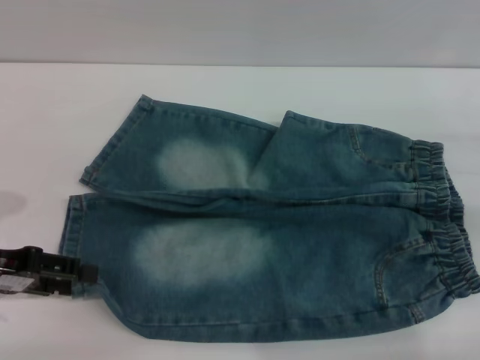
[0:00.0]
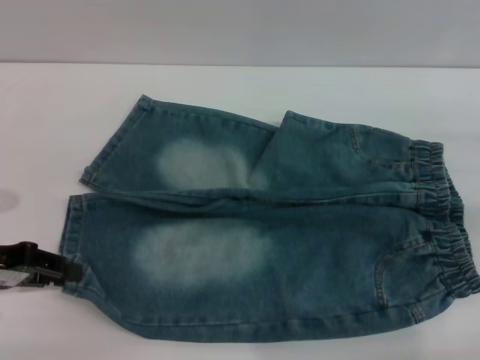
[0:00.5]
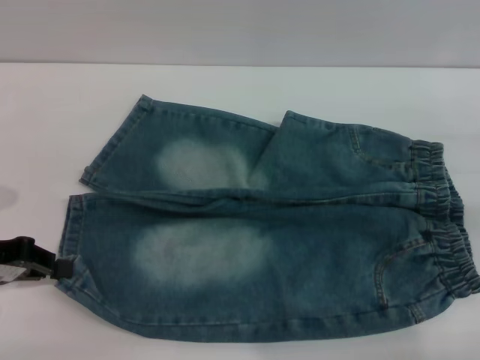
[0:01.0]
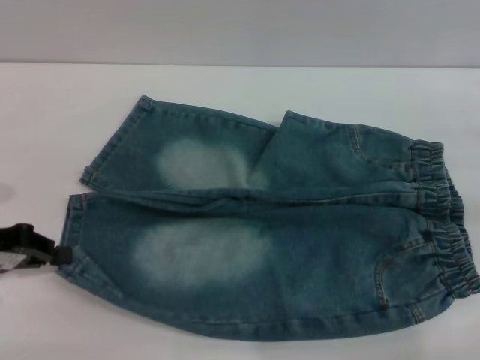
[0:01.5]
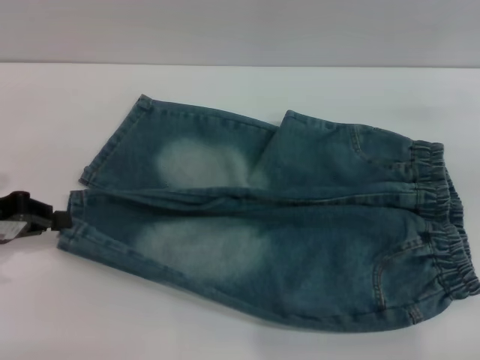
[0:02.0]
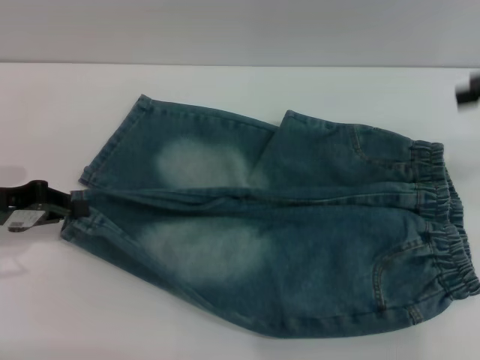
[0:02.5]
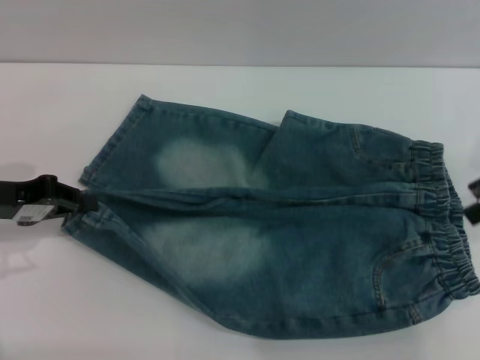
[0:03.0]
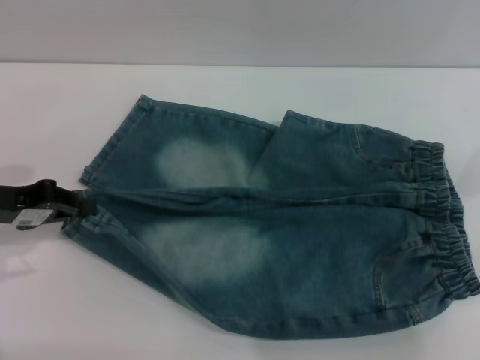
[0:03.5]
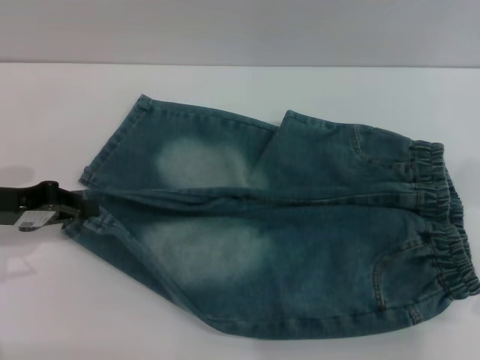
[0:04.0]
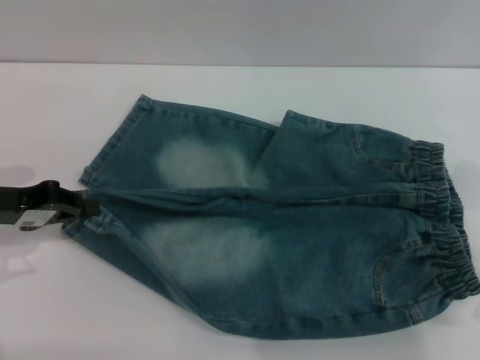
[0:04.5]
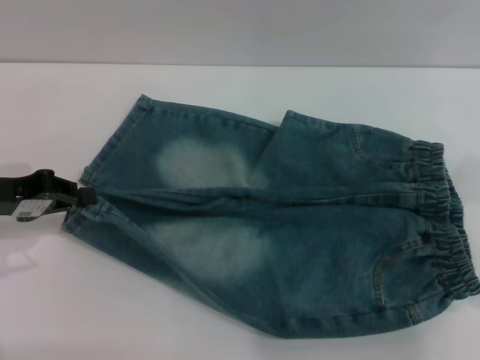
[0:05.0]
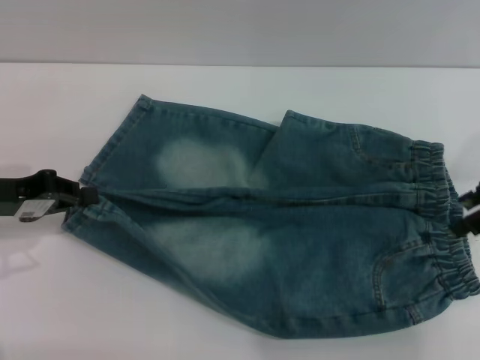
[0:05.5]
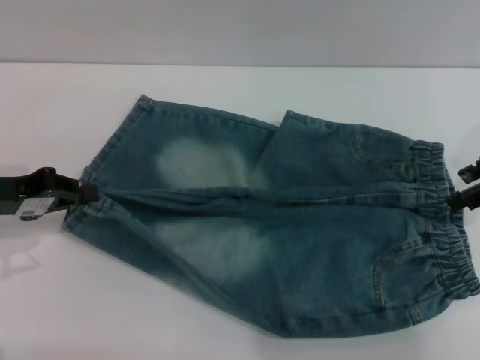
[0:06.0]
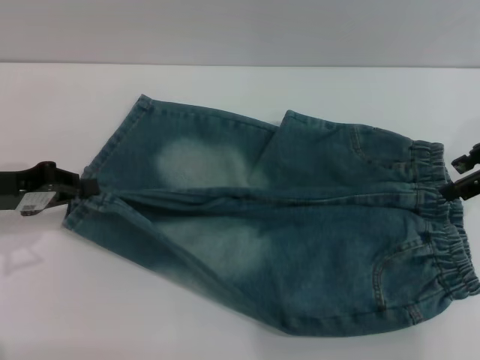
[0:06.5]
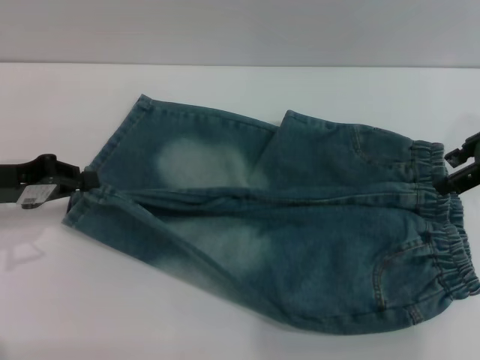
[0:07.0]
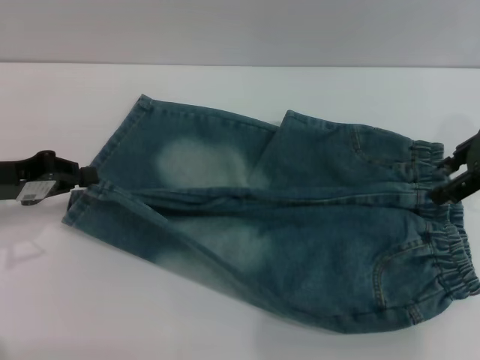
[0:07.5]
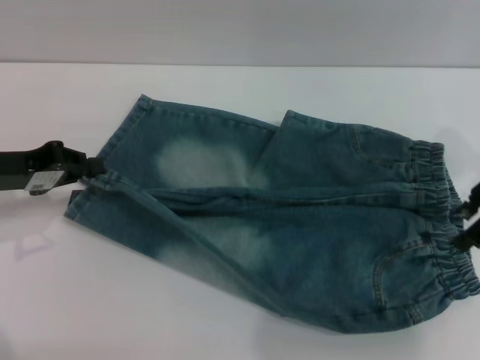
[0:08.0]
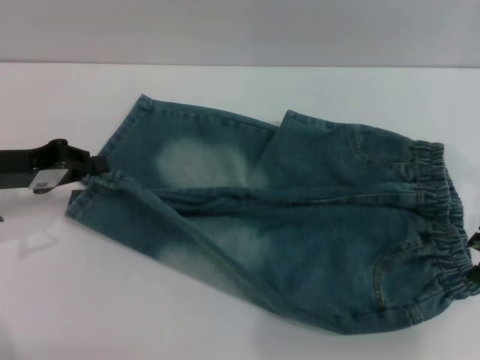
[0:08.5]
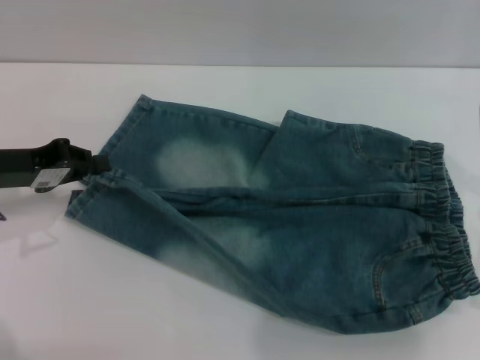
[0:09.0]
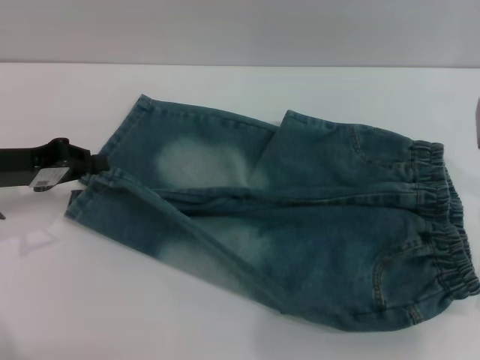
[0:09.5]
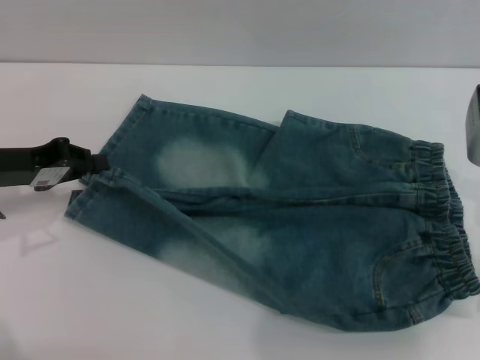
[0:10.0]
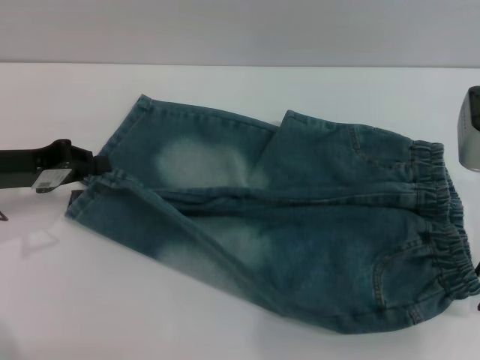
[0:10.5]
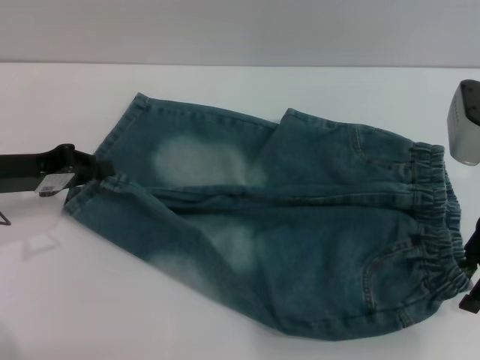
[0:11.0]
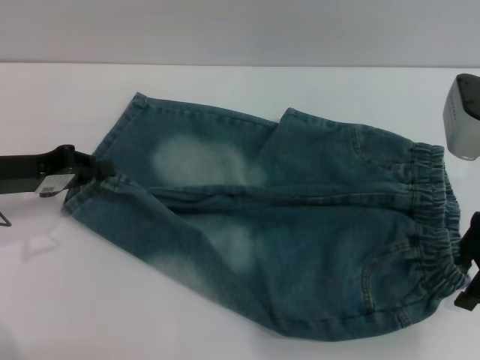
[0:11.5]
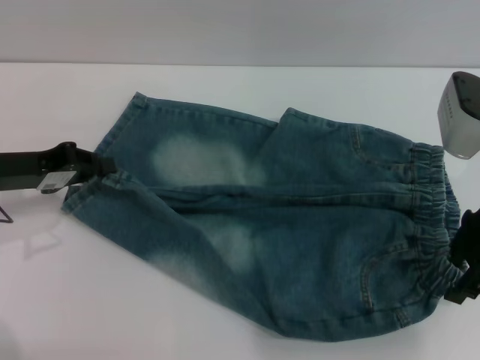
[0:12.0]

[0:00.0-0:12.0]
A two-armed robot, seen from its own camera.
0:00.0 to 0:02.0: The left gripper closes. The right gripper is displaced upward by about 5 cm.
0:02.0 to 0:04.0: The right gripper travels to the left by some 10 cm.
0:06.0 to 0:08.0: The grippers make only small movements.
0:08.0 to 0:12.0: The grippers make only small movements.

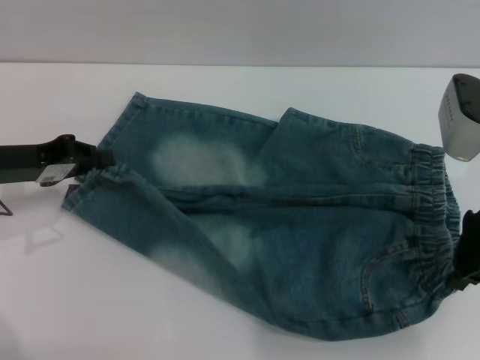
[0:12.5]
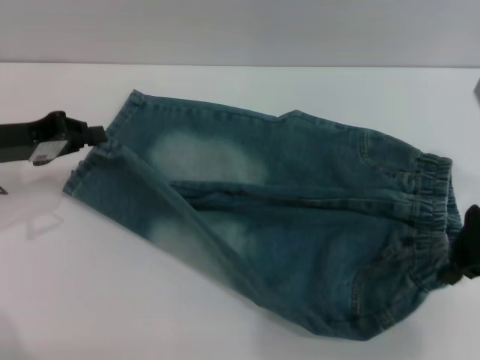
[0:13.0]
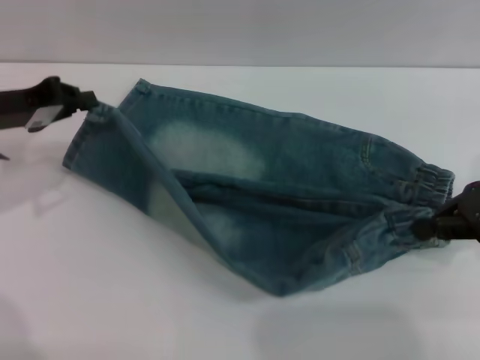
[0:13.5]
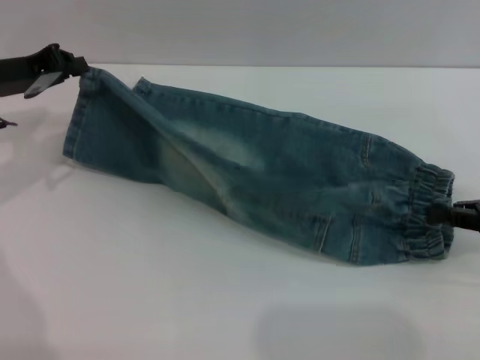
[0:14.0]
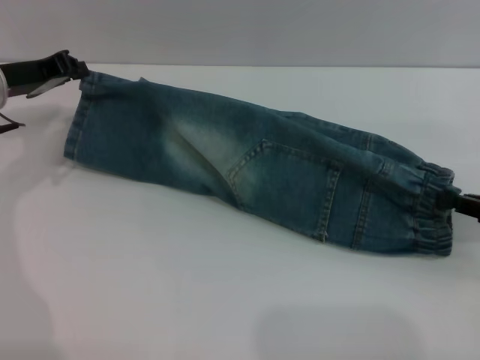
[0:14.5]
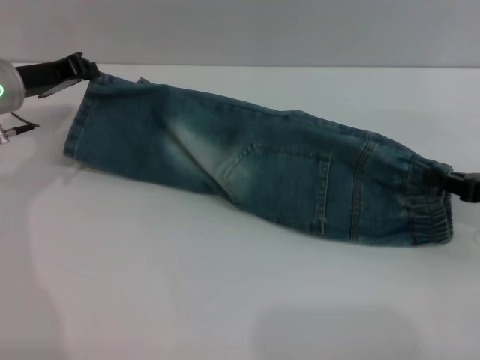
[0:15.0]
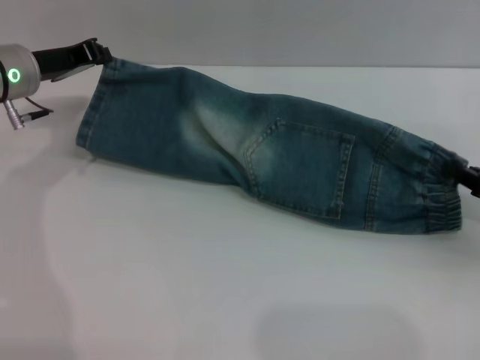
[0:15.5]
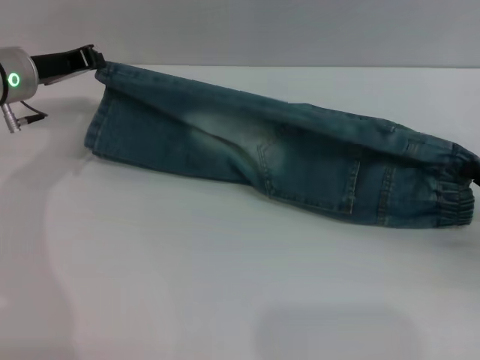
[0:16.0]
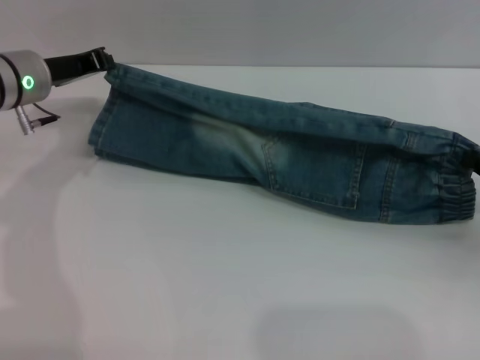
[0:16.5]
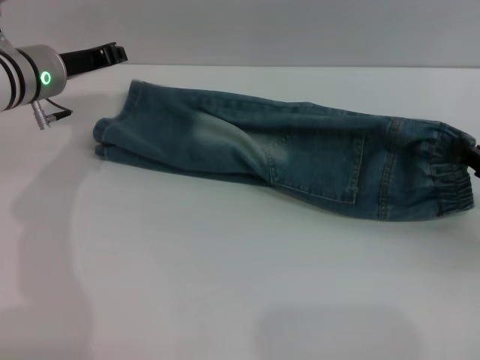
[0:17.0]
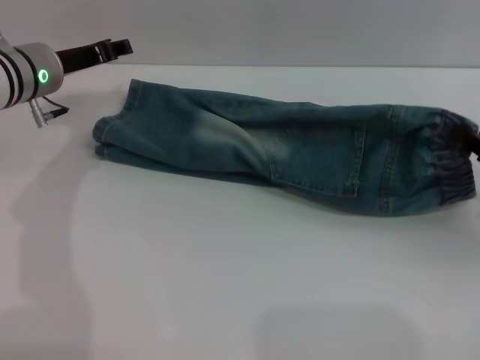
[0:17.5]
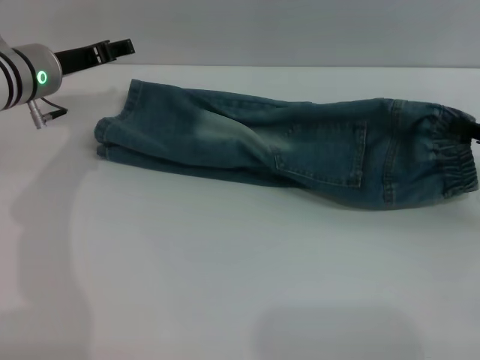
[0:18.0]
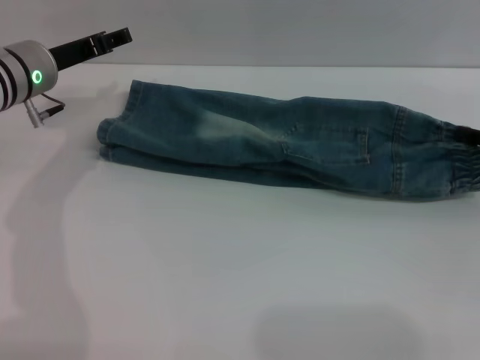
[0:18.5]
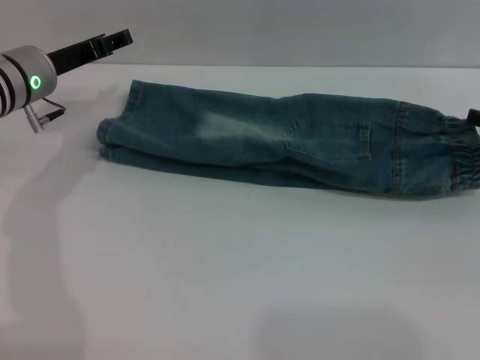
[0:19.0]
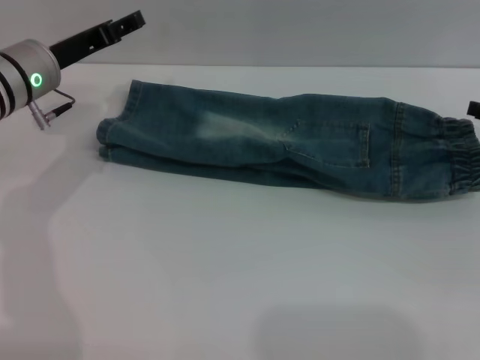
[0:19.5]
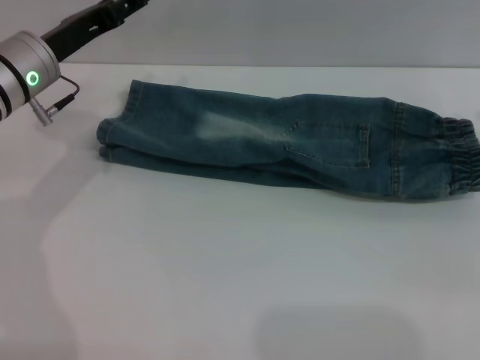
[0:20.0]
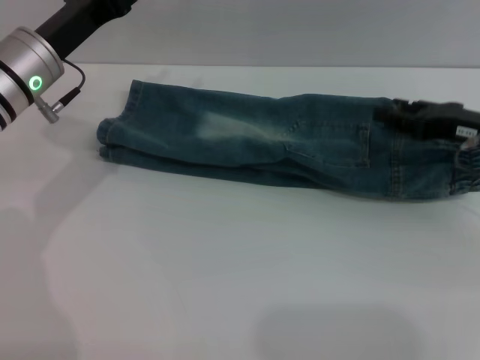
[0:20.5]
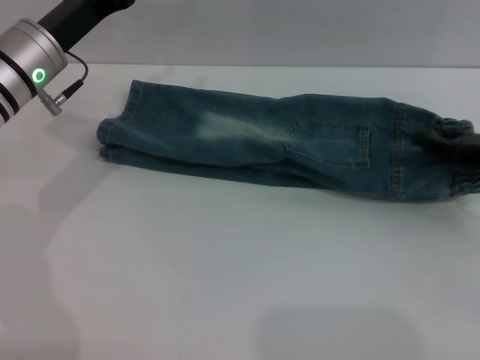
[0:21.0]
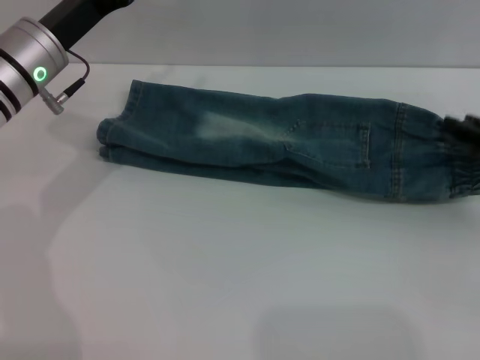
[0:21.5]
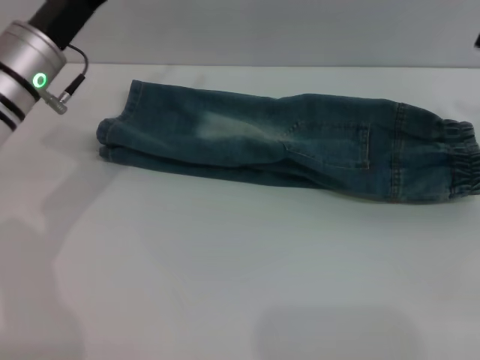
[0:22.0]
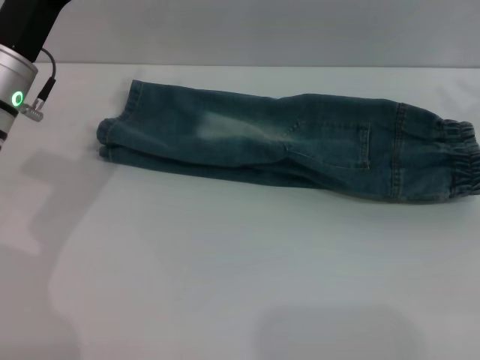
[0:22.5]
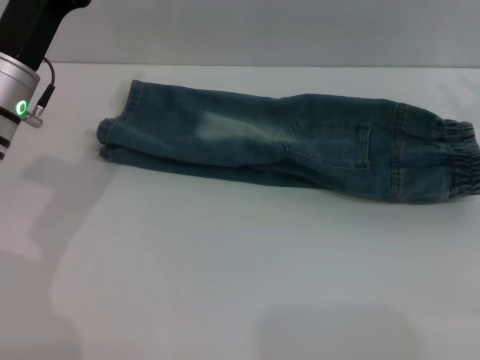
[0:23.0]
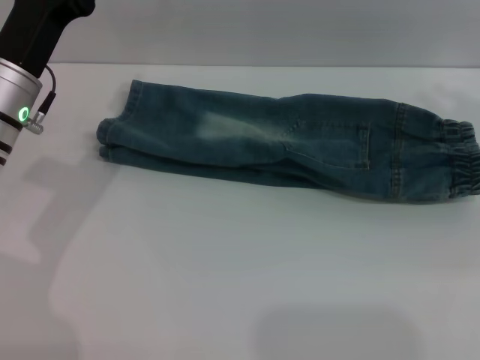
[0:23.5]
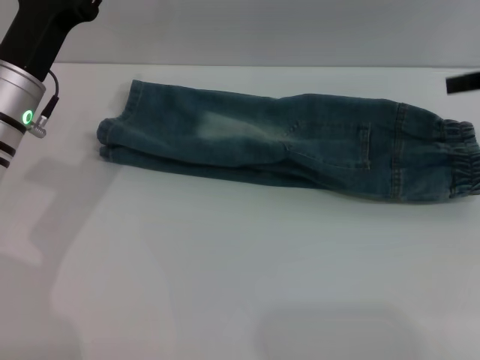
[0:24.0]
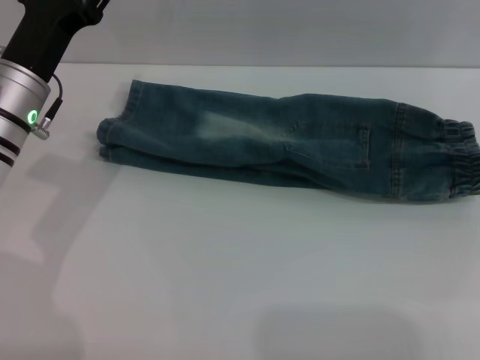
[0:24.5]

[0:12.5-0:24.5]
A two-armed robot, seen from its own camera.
Step, 0:12.5 to 0:19.0: Fold the bottom of the pants upward with both grippers.
0:12.5 to 0:14.5: The left gripper travels forward by about 10 cm, while the right gripper travels to the right, backward and downward by about 15 cm, and closes up.
0:14.5 to 0:16.5: The grippers move only a little.
0:16.5 to 0:18.5: The right gripper goes about 5 cm forward, while the left gripper opens up.
0:18.5 to 0:20.5: The right gripper heads to the left, covering approximately 5 cm.
0:20.5 to 0:22.5: The right gripper moves to the right and upward, roughly 10 cm.

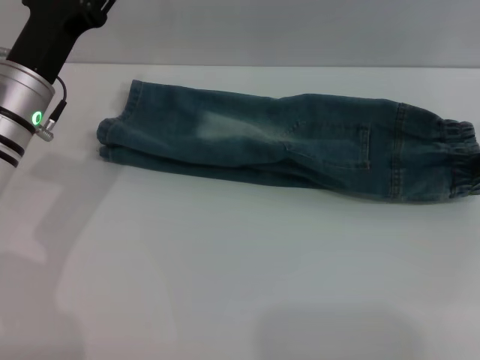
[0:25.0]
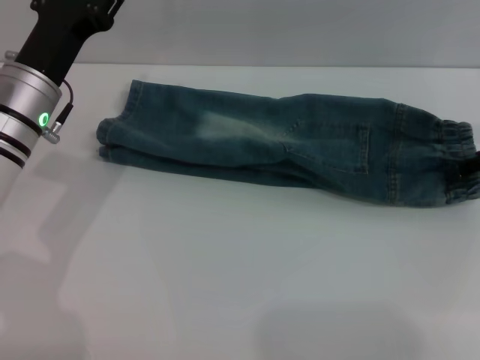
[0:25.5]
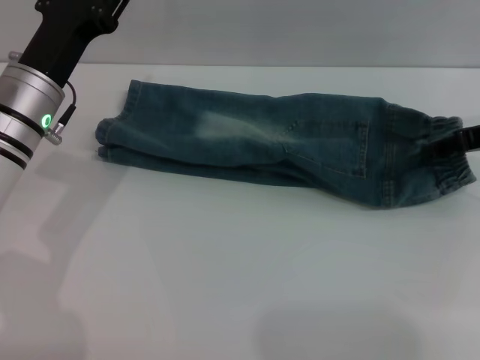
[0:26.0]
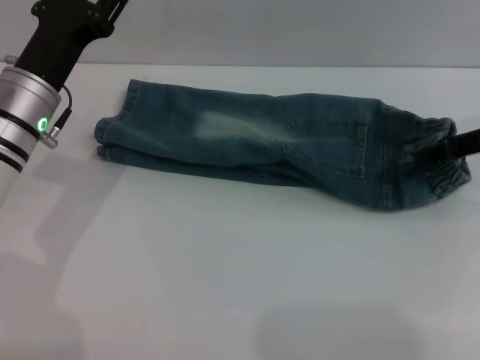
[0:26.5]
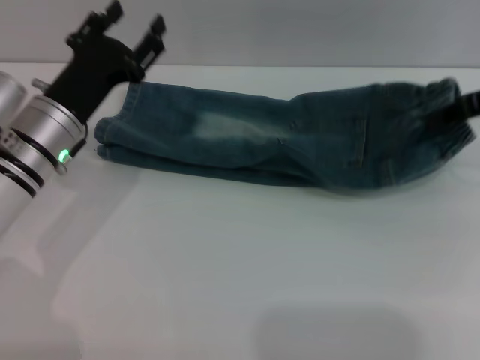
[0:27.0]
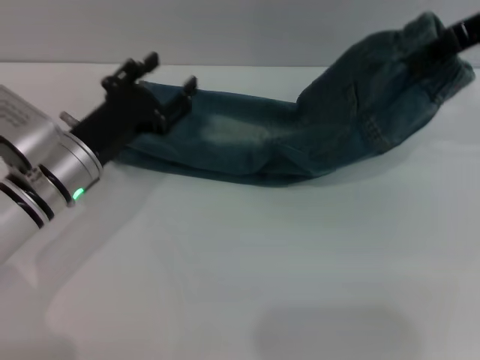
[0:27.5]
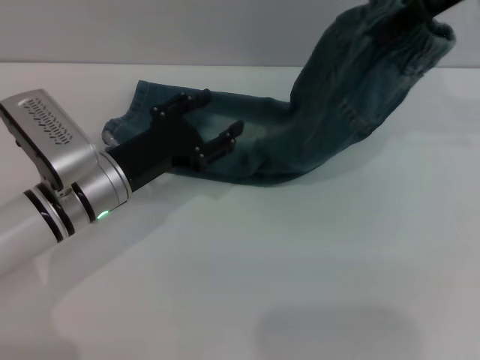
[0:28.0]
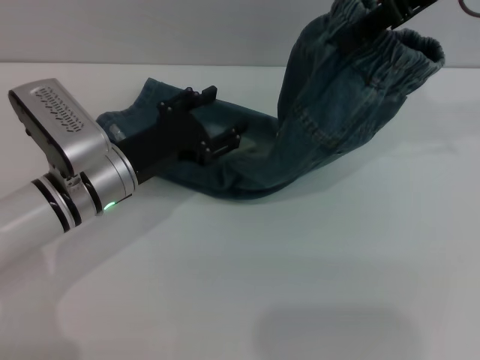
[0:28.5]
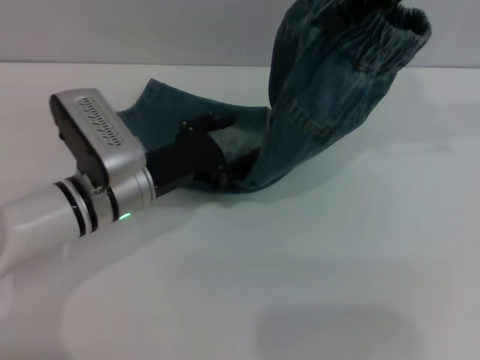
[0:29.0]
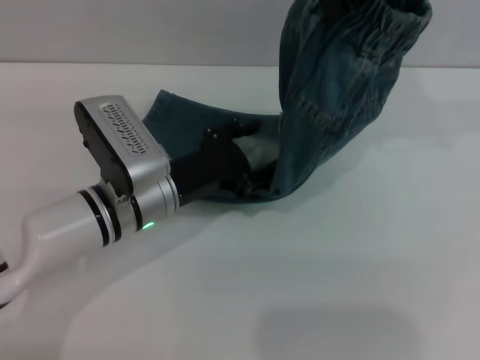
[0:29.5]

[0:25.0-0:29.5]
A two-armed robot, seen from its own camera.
0:25.0 to 0:27.0: The right gripper moves approximately 5 cm, and closes.
0:27.0 to 0:29.5: The right gripper is displaced upward and to the left by some 20 cm; the left gripper is displaced to the right by some 10 cm.
